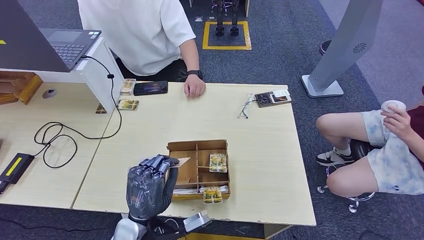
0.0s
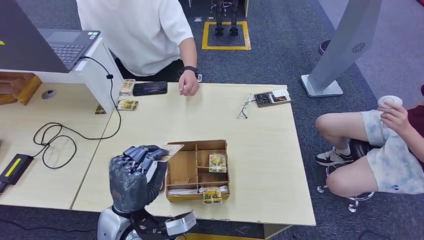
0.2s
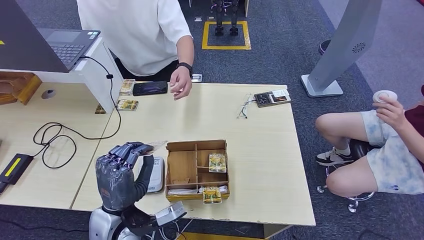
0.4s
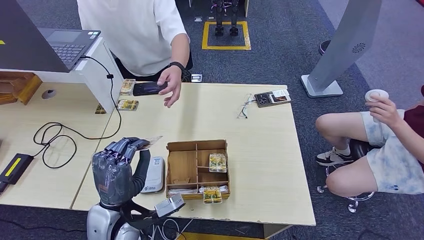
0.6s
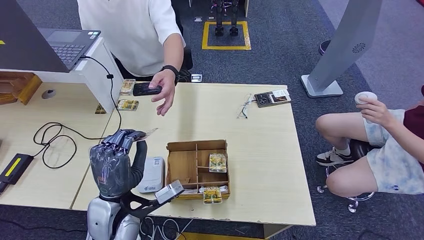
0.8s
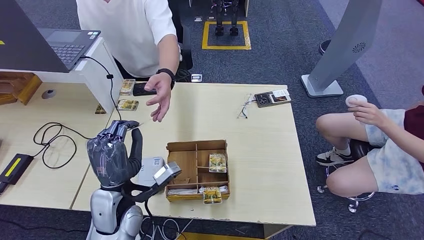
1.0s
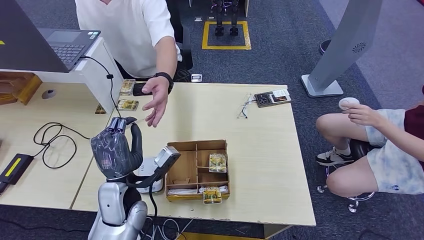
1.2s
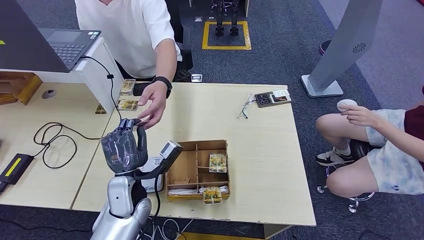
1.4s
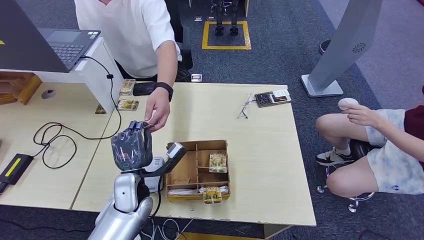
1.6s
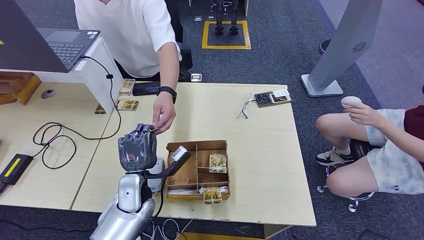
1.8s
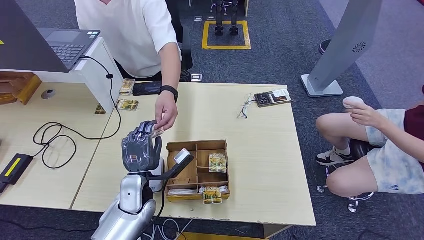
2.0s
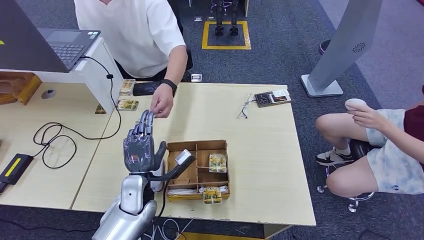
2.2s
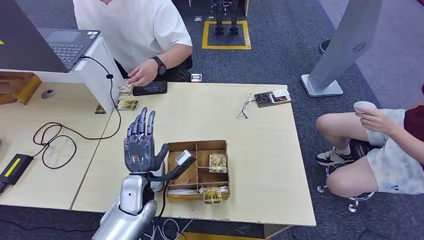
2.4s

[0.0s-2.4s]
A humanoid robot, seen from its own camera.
Step, 0.4s to 2.2s: Hand the room key to the person.
0.0s to 1.2s: The left hand is displaced forward by roughly 5 cm.
1.2s to 2.4s: The left hand moves downward, roughly 5 cm.
